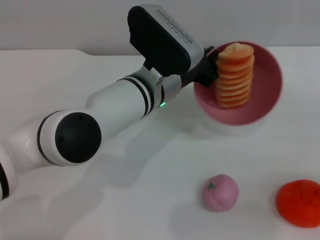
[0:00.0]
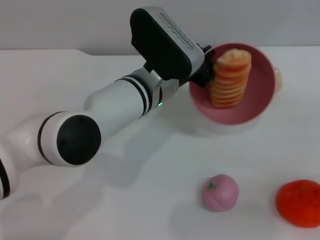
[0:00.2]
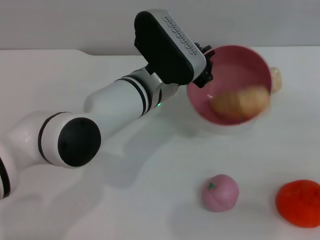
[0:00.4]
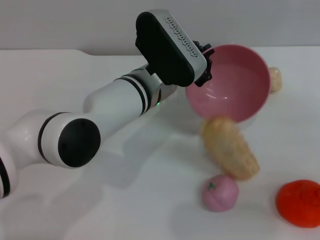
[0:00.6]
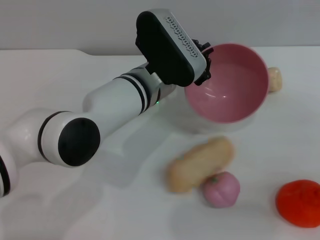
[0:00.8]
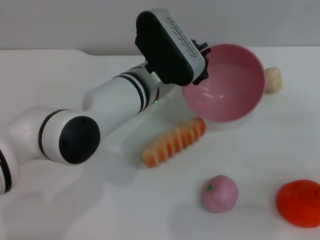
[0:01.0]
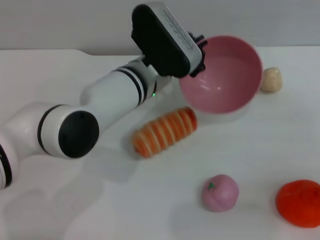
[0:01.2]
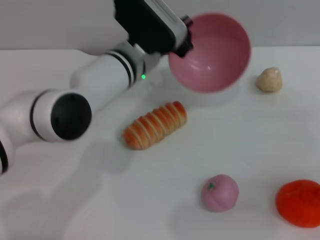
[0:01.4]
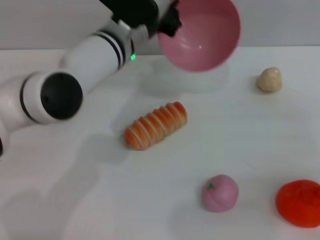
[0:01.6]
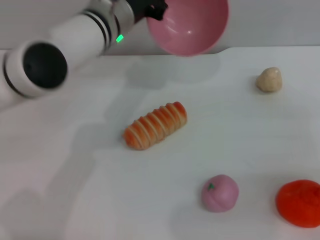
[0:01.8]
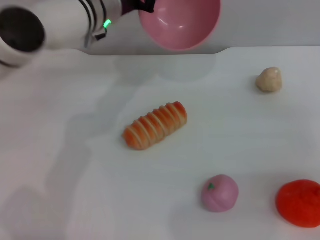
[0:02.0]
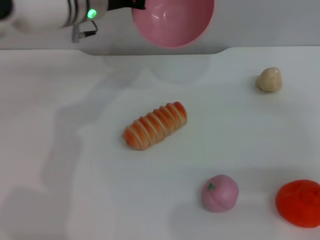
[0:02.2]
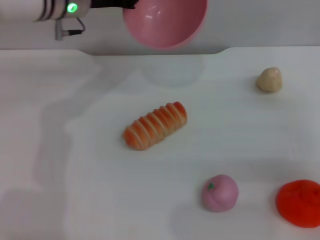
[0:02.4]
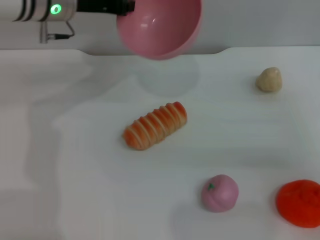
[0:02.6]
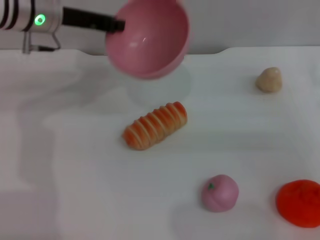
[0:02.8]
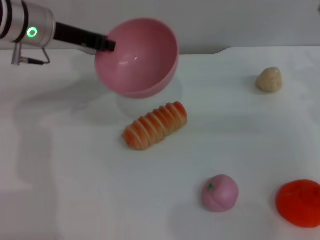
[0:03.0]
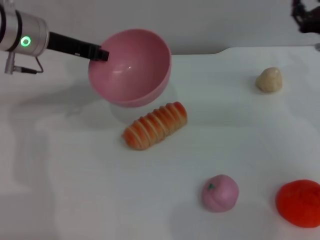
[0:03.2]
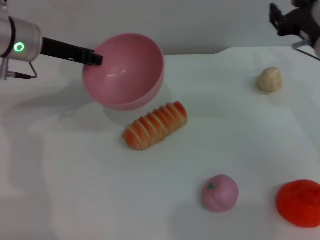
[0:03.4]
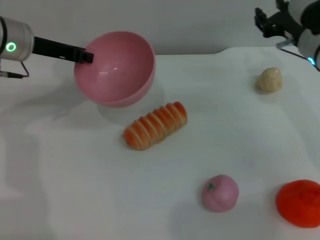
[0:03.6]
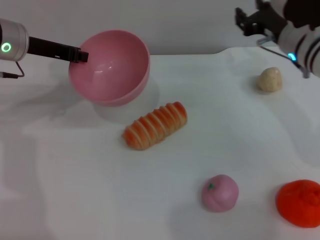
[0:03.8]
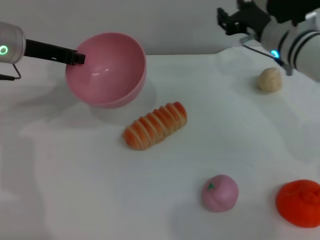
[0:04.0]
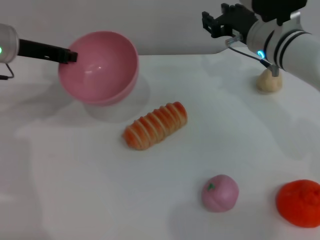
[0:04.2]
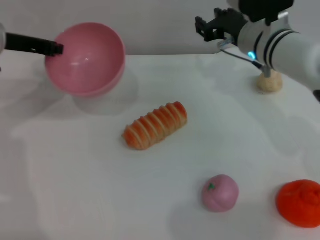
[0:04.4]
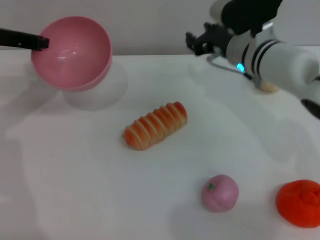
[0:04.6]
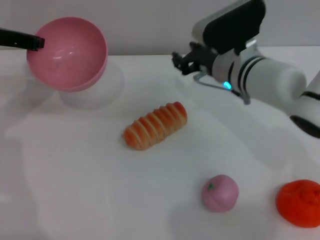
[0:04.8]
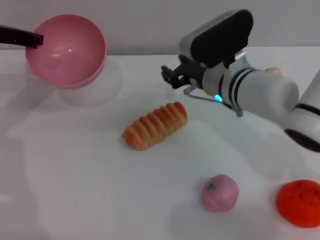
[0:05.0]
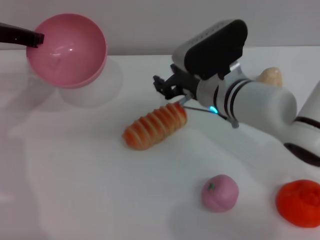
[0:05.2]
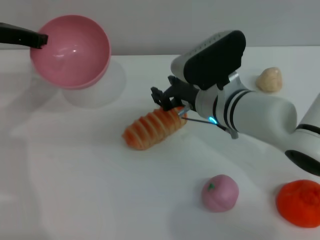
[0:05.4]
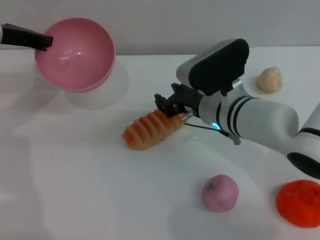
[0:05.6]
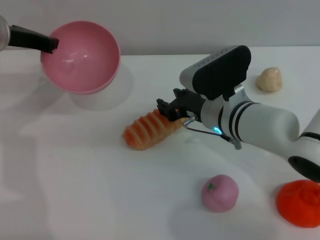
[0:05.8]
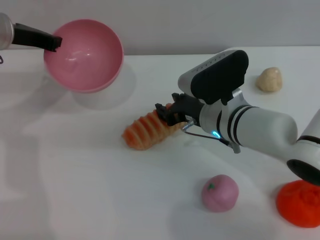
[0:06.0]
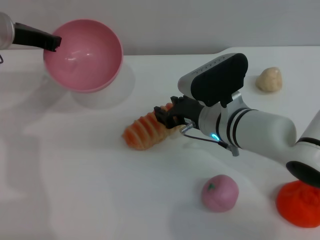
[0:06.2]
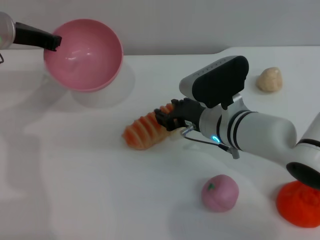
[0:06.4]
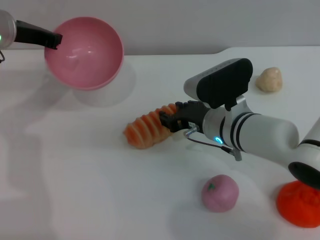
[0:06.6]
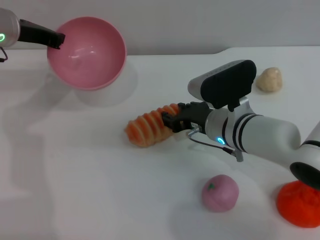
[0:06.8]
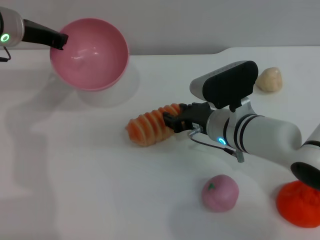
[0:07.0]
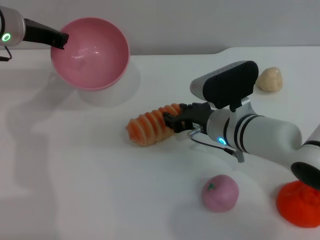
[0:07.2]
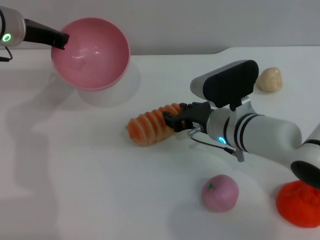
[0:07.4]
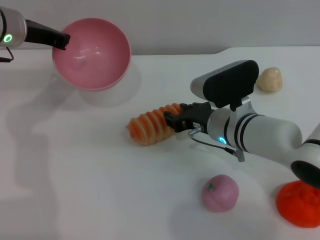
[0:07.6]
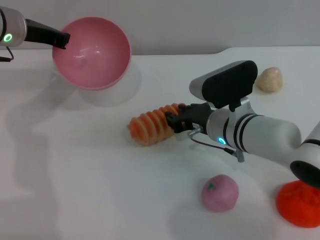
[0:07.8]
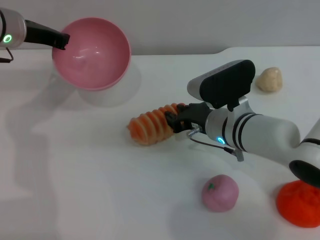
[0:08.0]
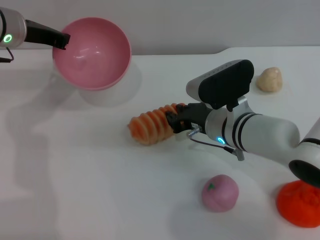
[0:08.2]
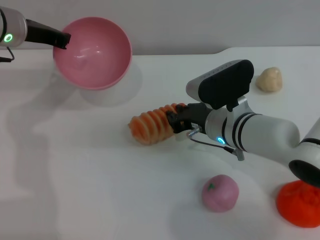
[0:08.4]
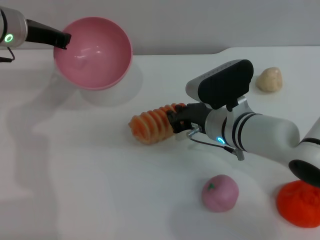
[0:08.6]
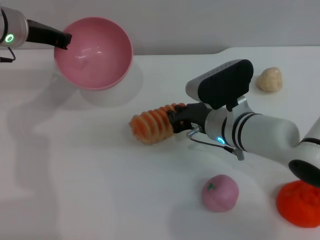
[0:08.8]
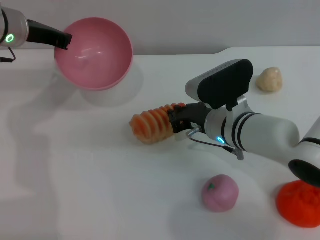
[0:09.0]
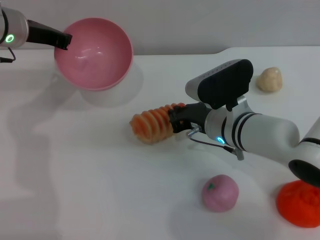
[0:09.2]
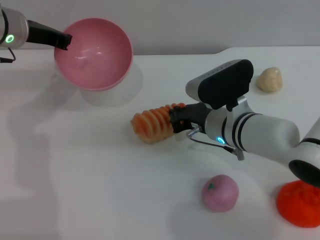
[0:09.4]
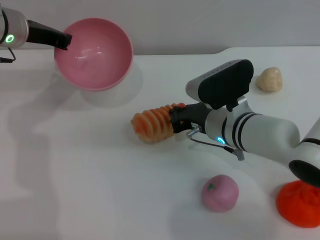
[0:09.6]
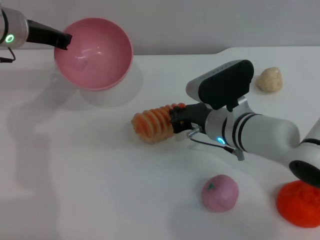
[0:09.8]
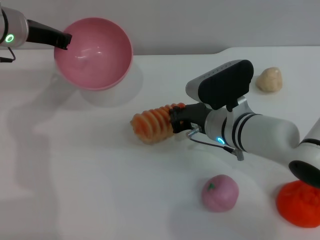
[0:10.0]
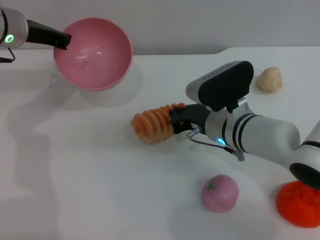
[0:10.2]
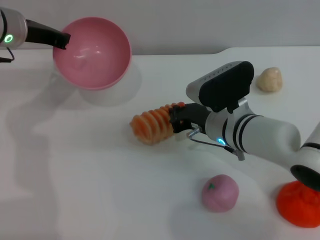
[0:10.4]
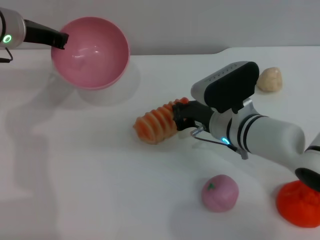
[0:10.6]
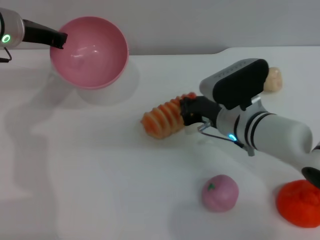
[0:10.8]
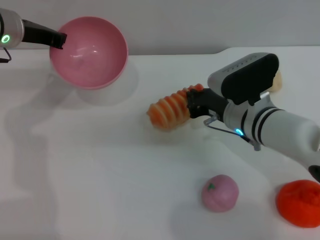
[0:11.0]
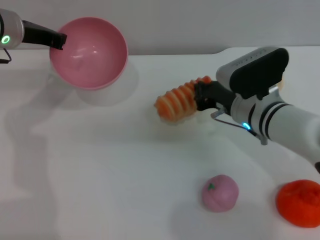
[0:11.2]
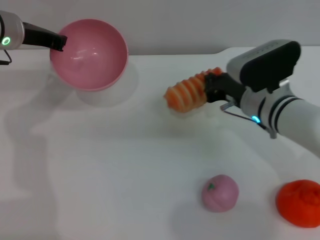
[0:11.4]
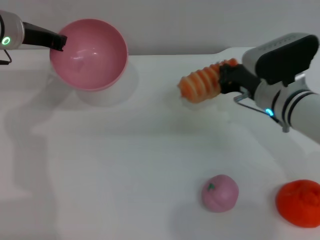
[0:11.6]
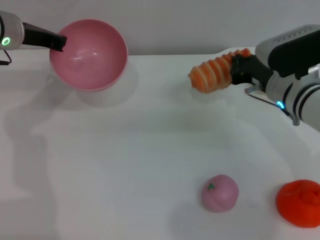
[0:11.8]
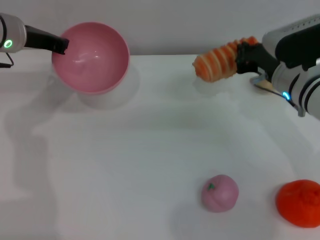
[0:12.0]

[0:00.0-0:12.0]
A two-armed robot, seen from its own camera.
Task of the whole recording: put the bread into the pink bowl and pour it out repeatedly.
Step, 0:00.0 to 0:11.2: Pick up the bread with the right gripper.
0:00.0 to 0:01.6: The left gripper moves forward, roughly 5 cm.
0:01.6 to 0:03.0: The left gripper travels to the left by some 15 cm, while the right gripper shifts approximately 10 cm forward and to the left.
0:03.0 to 0:04.4: The left gripper is displaced to the left by approximately 5 cm, while the right gripper travels to the left and forward by about 15 cm.
0:04.4 to 0:06.0: The right gripper is displaced backward, downward and to the left by approximately 10 cm.
0:06.0 to 0:07.6: The grippers stay close to where they were, moving slightly.
0:07.6 to 0:09.0: The right gripper closes up.
0:09.0 to 0:10.4: Neither gripper changes place.
0:10.4 to 0:12.0: The right gripper is displaced to the right by roughly 10 cm.

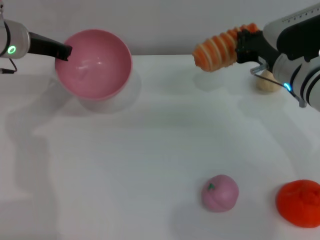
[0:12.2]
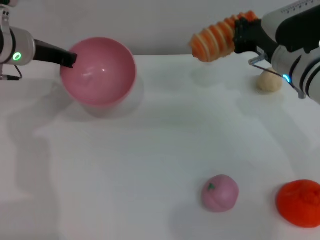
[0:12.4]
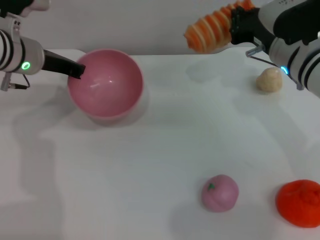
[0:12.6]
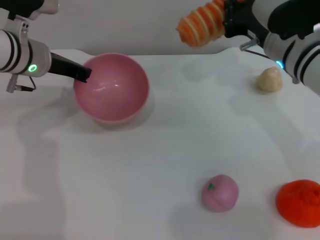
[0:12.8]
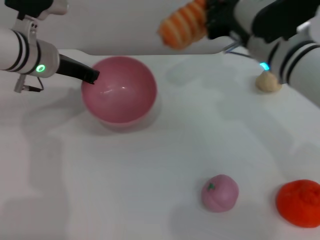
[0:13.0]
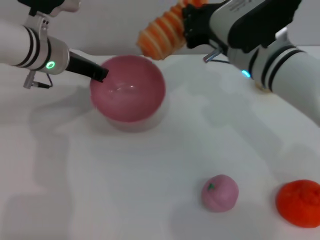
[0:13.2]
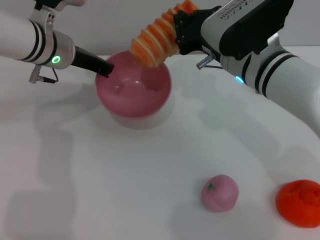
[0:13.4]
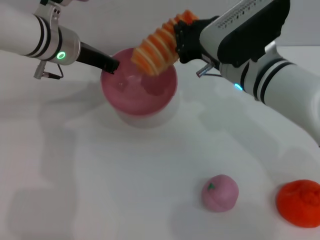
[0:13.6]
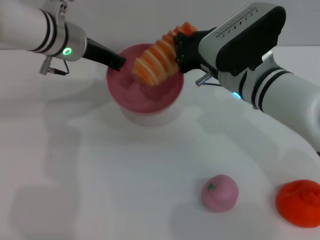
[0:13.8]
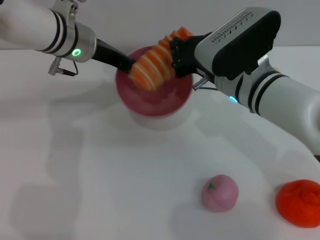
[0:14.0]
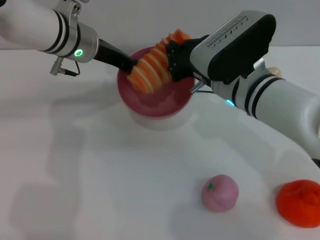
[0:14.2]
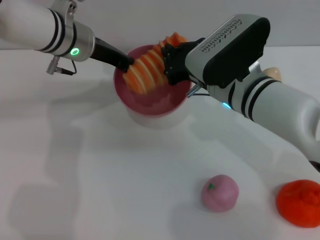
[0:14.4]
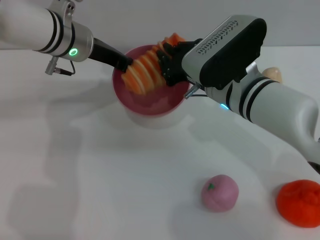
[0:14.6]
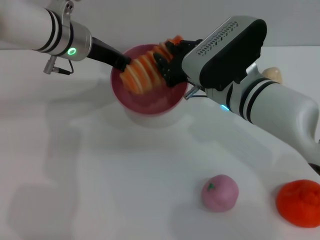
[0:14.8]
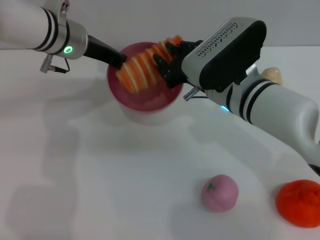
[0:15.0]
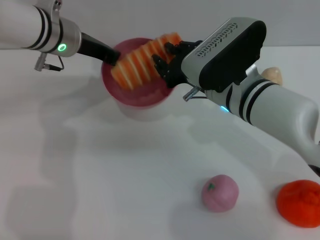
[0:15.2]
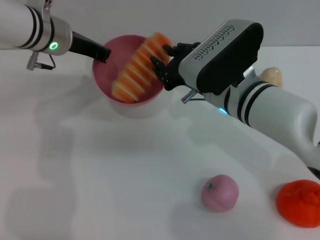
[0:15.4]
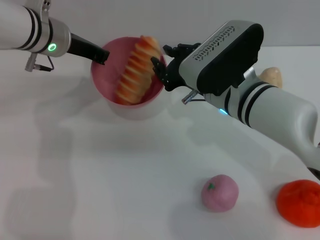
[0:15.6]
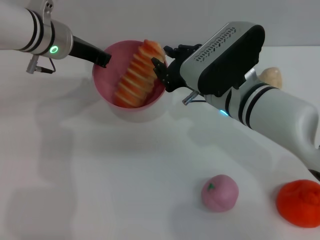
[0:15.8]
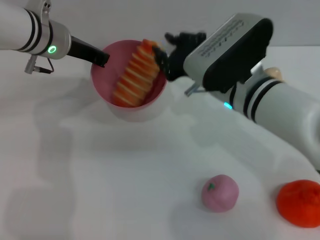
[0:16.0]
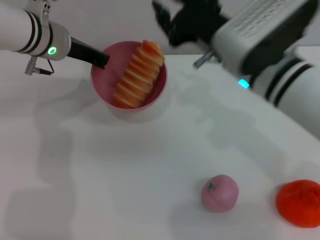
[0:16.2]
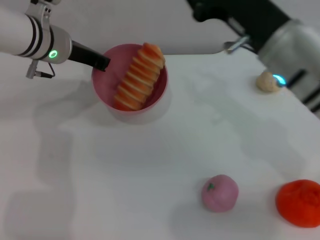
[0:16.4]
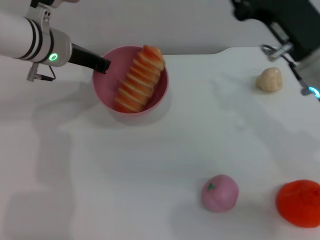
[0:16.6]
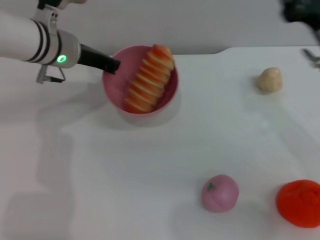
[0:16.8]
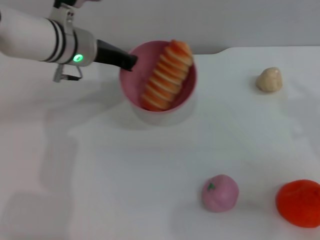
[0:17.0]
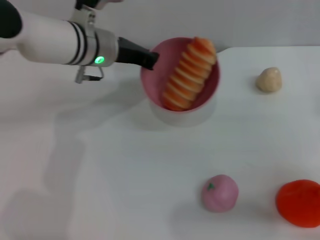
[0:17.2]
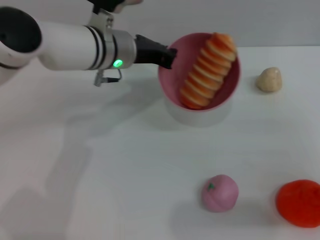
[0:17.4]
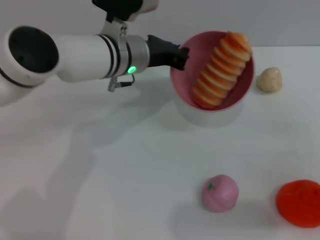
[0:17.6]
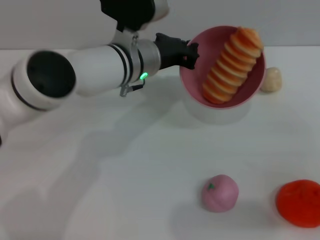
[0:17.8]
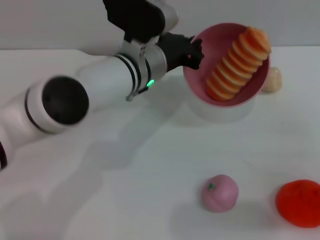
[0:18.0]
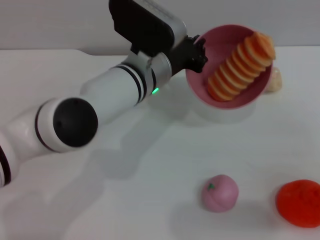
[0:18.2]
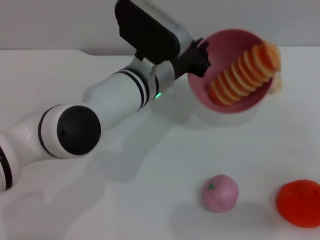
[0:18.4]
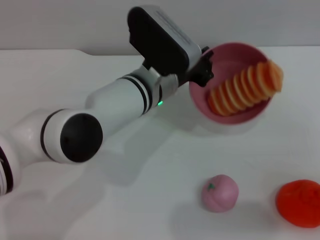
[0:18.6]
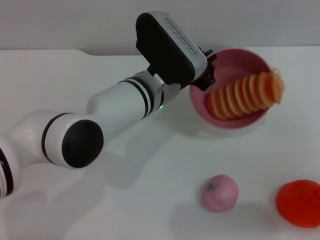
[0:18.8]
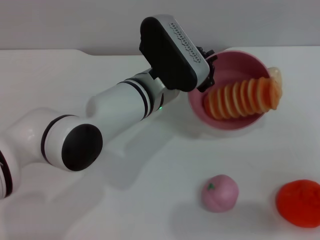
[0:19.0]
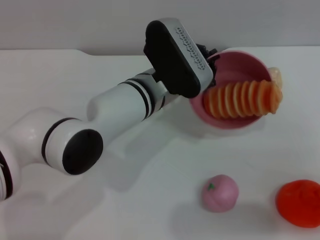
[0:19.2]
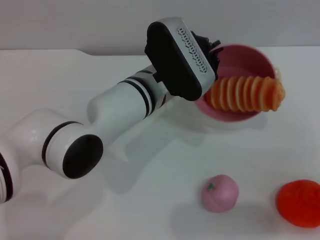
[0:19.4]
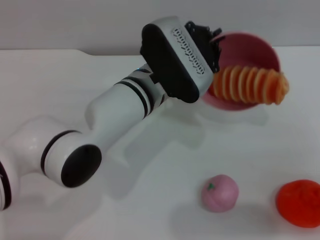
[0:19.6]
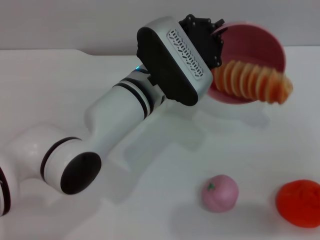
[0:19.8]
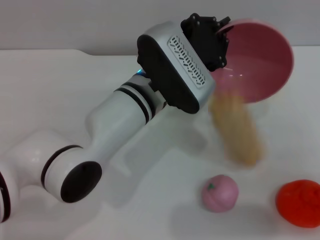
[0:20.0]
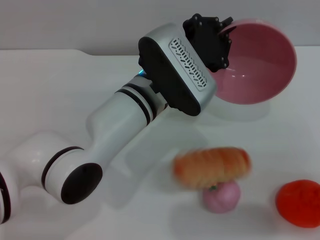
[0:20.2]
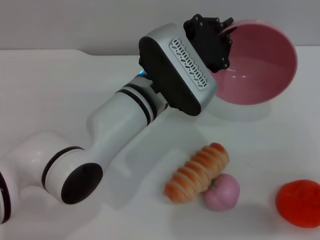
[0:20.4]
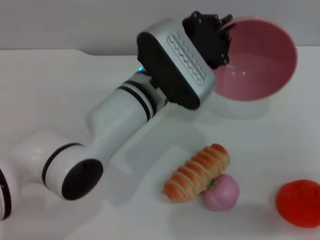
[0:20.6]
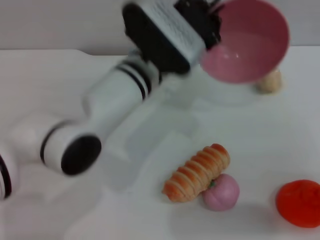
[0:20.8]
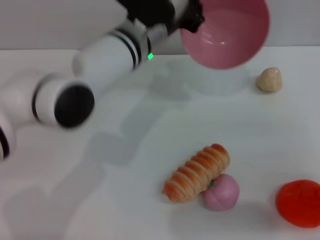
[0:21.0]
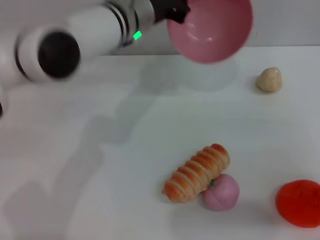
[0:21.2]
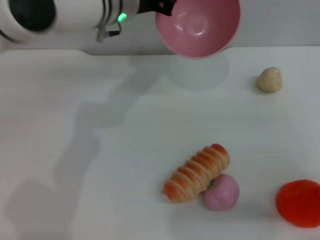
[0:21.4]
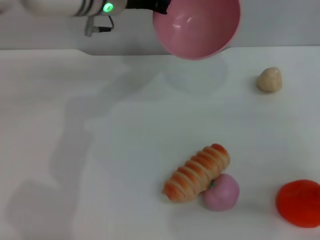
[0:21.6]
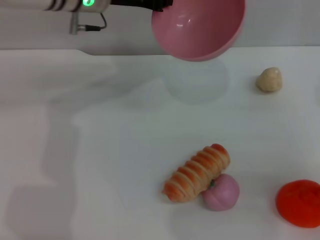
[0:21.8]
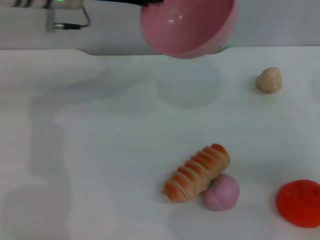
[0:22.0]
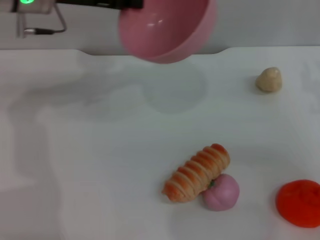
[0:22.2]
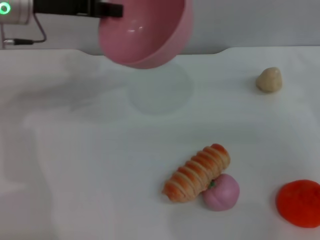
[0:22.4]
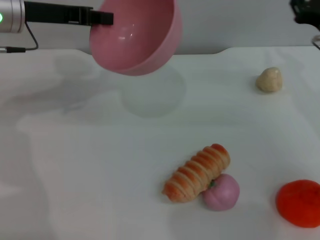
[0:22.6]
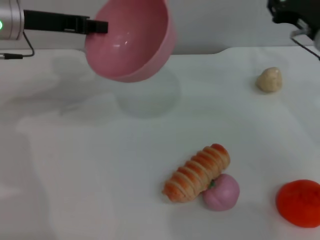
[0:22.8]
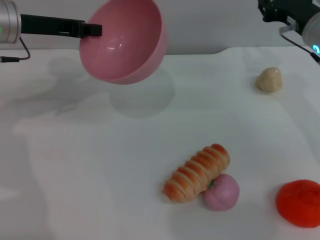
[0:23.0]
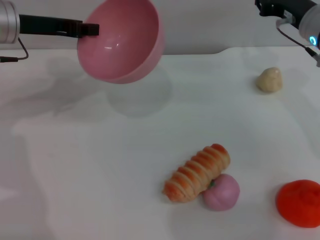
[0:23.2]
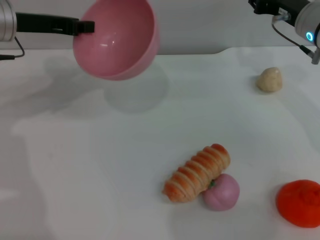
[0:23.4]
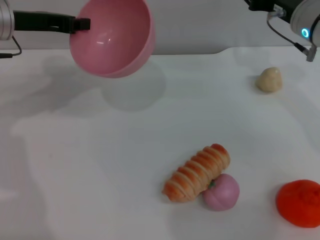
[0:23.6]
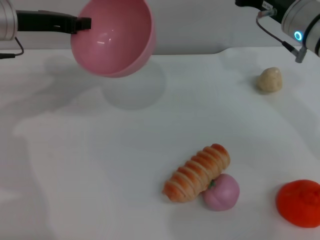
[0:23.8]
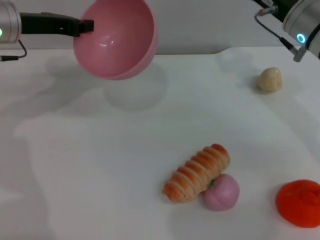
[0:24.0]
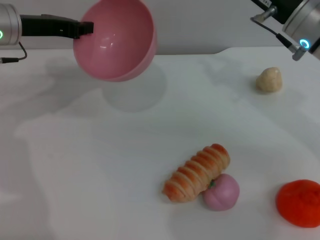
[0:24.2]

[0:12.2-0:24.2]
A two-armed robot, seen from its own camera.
Task of the whole recording: put the bread into the pink bowl and pour it out repeatedly.
Step, 0:12.2 to 0:16.0: Place the bread into the bowl.
Step, 0:16.2 to 0:20.6: Pour the bread out of the bowl.
0:12.2 to 0:13.8: The left gripper goes about 10 cm to the right; the right gripper shifts about 10 cm to the left.
0:13.8 to 0:15.2: The right gripper opens its fingers.
0:15.2 to 0:16.6: The right gripper heads to the right, covering roughly 10 cm.
0:16.6 to 0:18.2: The left gripper shifts approximately 15 cm to the right and backward; the right gripper shifts approximately 20 cm to the right.
0:19.8 to 0:21.2: The left gripper heads forward and upward, covering some 10 cm.
0:21.2 to 0:22.6: The left gripper shifts some 20 cm to the left, while the right gripper goes some 15 cm forward and to the left.
0:22.6 to 0:24.2: The right gripper goes some 10 cm to the left.
